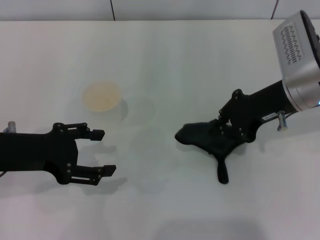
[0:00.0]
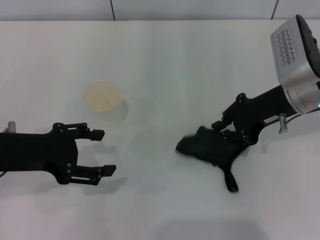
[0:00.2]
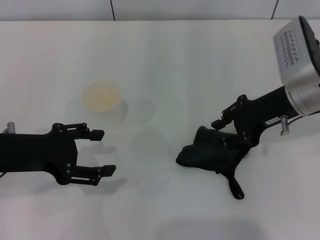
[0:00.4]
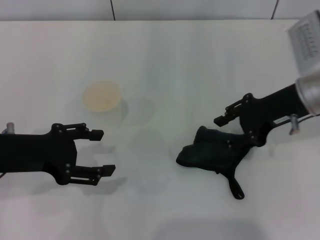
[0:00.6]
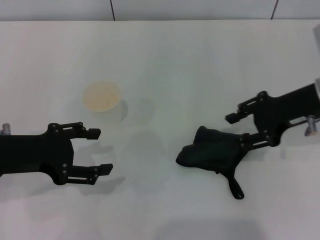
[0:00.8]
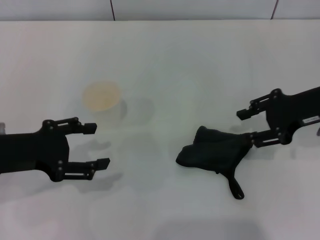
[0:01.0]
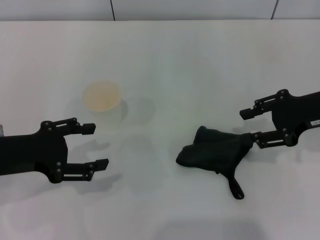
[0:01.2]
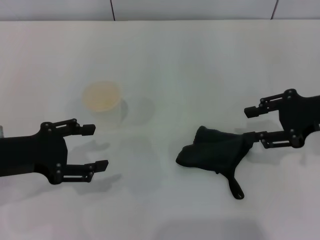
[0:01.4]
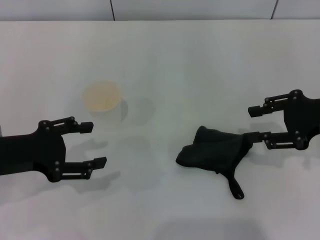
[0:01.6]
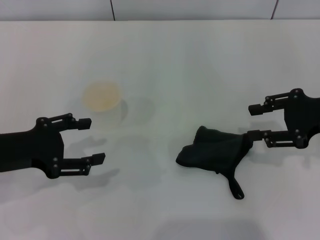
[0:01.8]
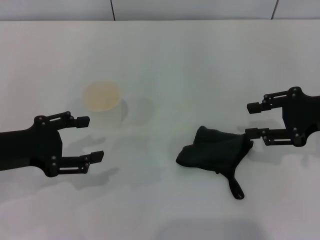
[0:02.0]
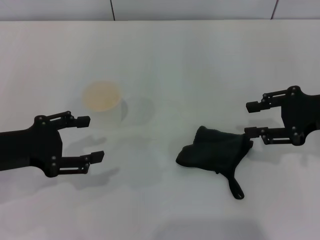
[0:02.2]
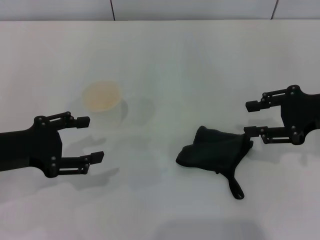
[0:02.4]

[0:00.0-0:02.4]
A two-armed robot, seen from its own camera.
0.0 to 1.2 s: The right gripper is displaced to the right by about 5 cm, and opens its fingers.
1.2 to 2.4 s: The grippers make only small movements.

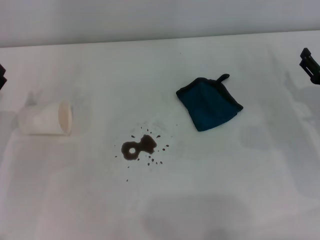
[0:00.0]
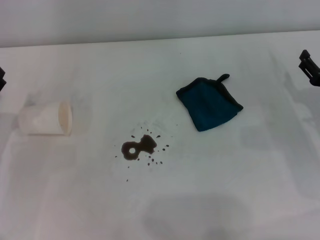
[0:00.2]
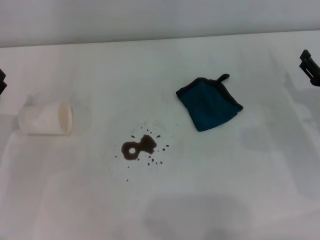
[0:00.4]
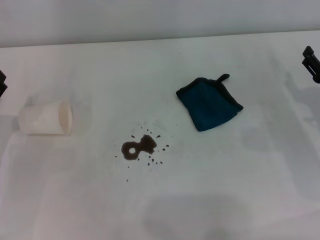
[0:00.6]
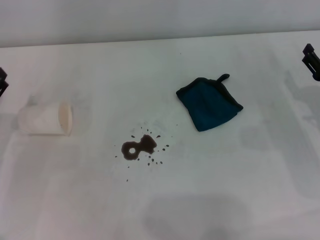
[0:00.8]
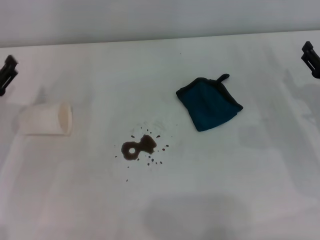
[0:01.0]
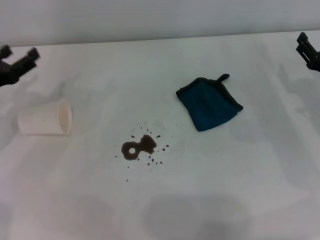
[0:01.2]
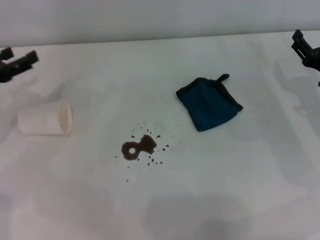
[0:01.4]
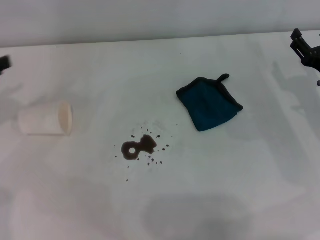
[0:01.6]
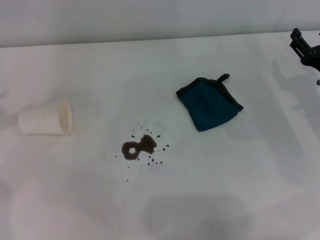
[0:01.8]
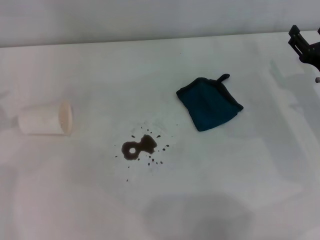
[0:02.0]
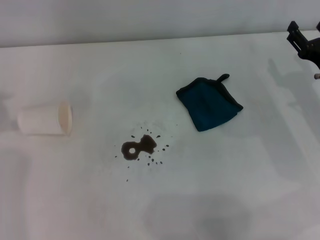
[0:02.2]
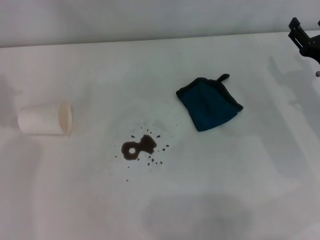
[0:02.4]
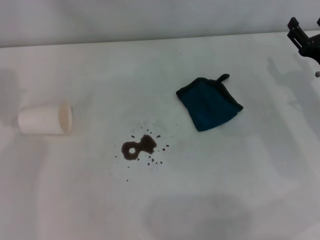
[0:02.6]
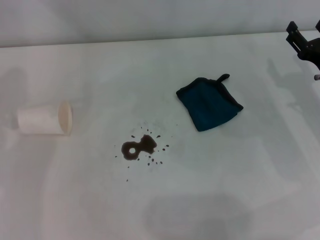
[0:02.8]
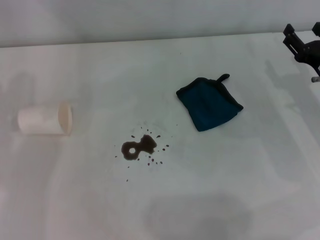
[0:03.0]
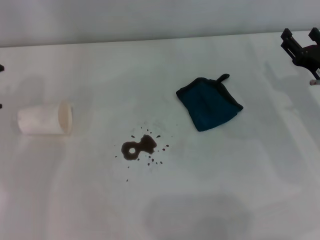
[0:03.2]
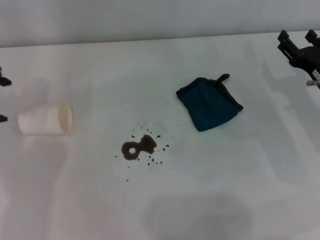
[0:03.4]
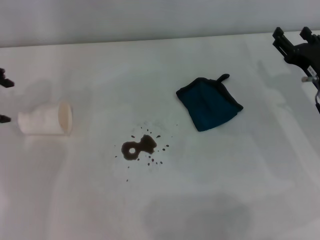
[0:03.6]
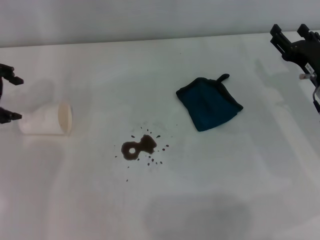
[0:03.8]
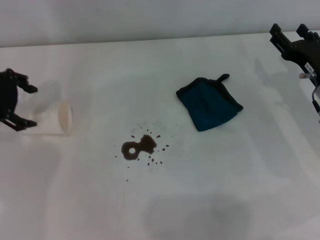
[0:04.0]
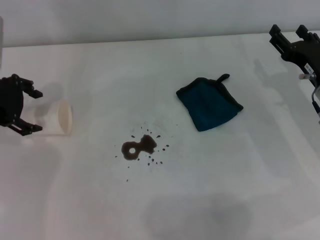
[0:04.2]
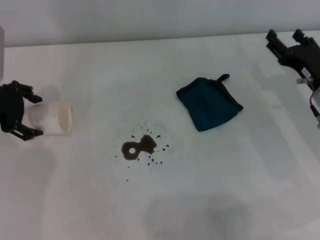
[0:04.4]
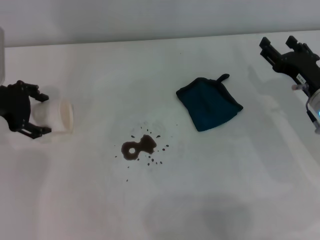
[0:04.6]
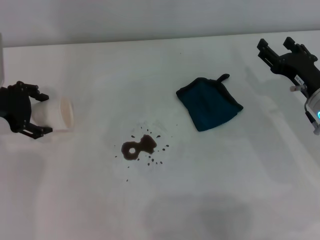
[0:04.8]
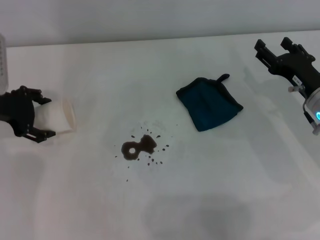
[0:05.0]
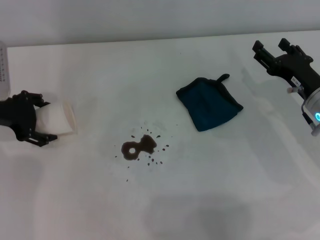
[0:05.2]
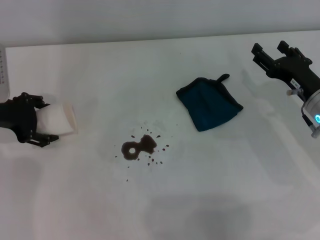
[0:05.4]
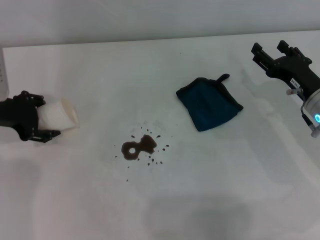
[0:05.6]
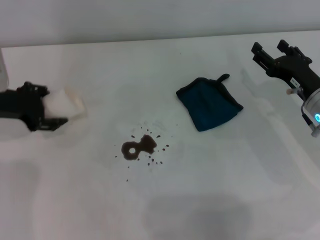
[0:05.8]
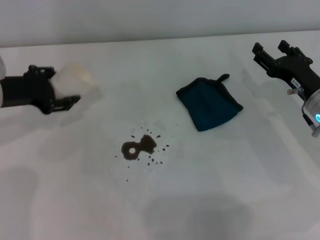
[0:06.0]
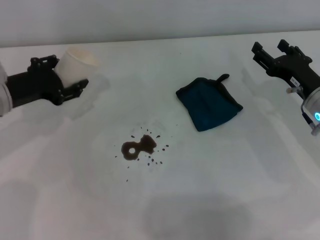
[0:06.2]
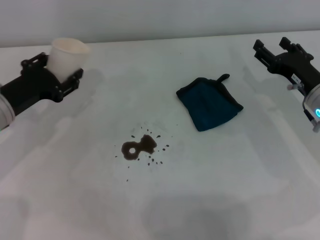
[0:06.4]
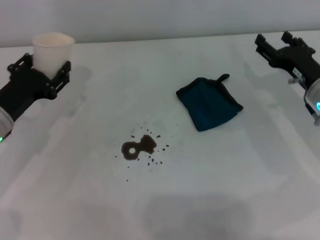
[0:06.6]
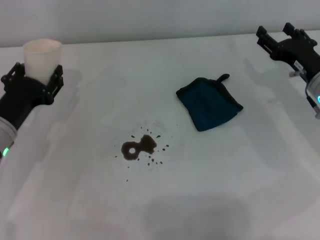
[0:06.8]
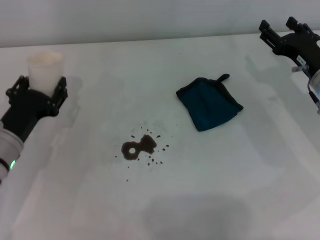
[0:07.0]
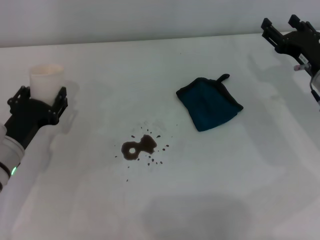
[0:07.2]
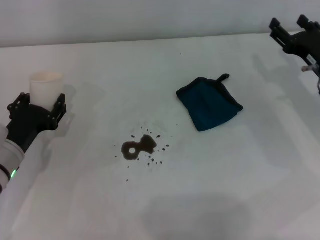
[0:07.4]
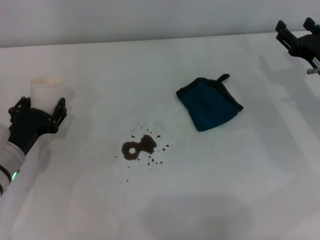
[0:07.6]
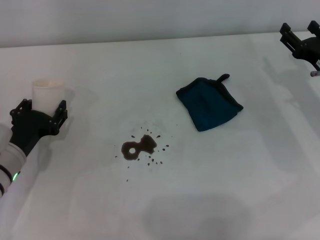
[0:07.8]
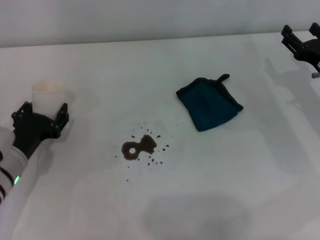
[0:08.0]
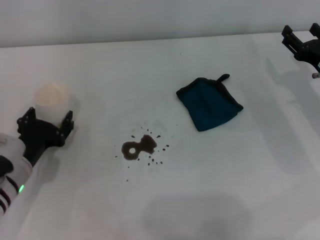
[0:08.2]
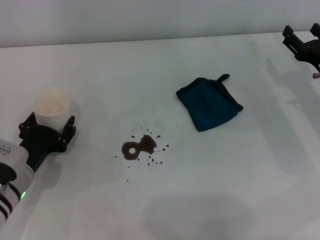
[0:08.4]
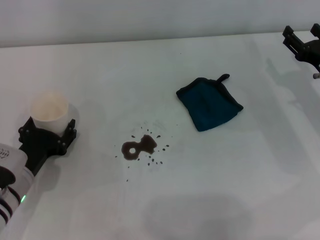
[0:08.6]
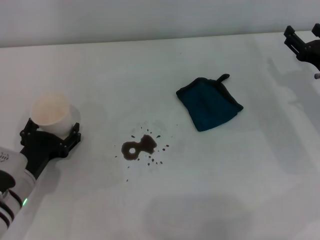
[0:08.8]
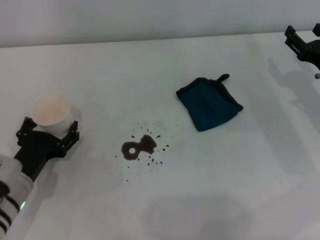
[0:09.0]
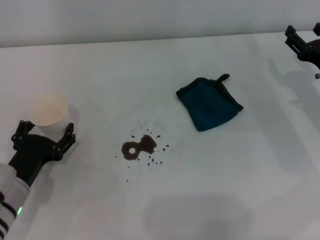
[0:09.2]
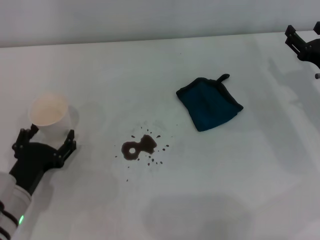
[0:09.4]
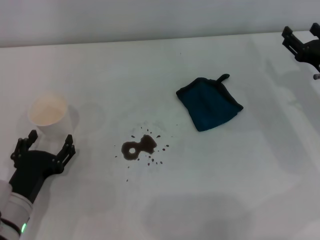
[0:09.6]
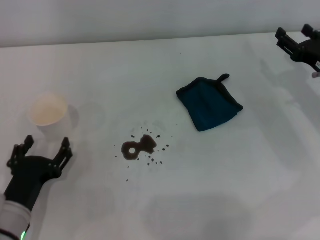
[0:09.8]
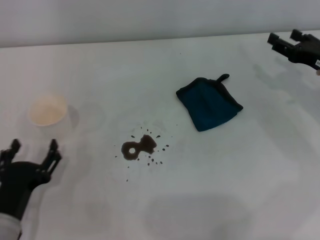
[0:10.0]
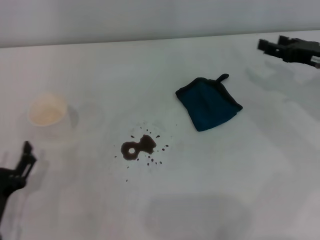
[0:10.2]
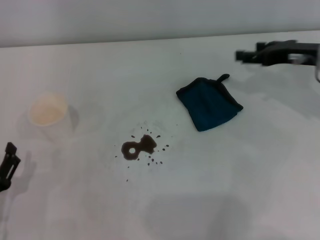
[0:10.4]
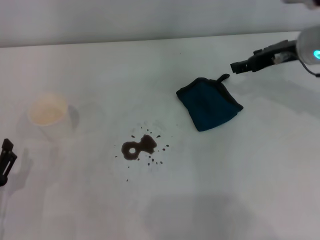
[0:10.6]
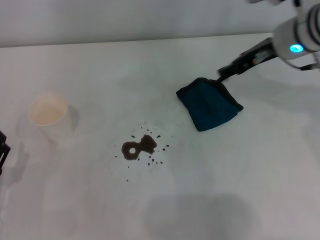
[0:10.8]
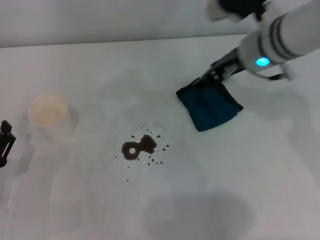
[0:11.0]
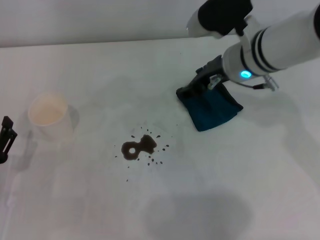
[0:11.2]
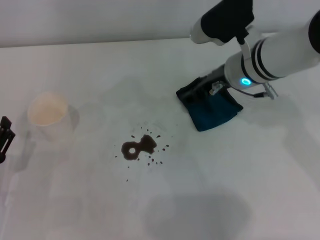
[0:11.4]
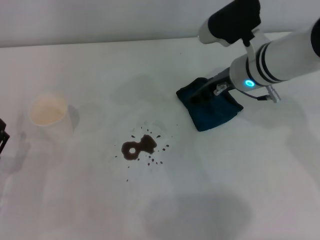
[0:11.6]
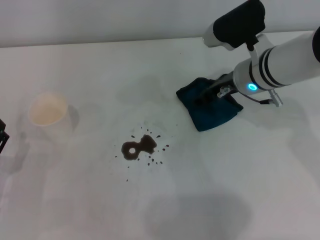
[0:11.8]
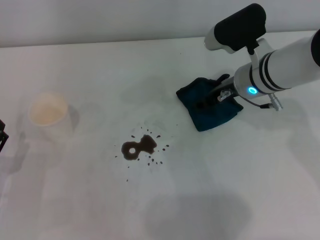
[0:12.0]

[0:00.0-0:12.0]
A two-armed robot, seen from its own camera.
Step, 0.0 to 4.8 s: Grasp the paper cup with the left gripper.
Step, 5.2 to 8.8 s: Stand the paper cup upright with the left gripper.
3.0 to 4.4 s: The left gripper moves downward, approximately 10 cm.
4.4 to 6.0 s: The left gripper closes.
6.0 to 7.6 s: The left gripper is displaced downward and backward by about 15 cm.
7.6 to 9.0 s: The left gripper opens up.
9.0 to 10.4 s: The right gripper travels upward by roughly 10 cm. Meanwhile the left gripper is displaced backward by some 10 cm.
10.4 to 12.0 s: The right gripper goes some 10 cm to the left.

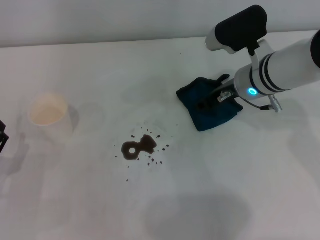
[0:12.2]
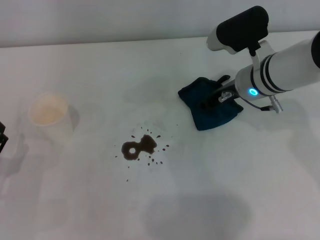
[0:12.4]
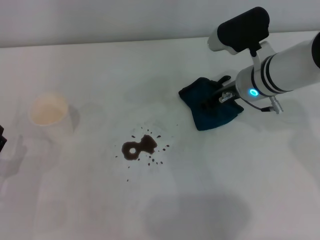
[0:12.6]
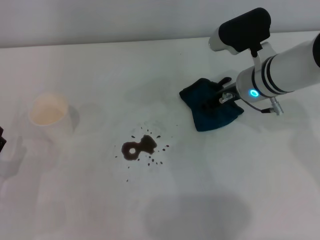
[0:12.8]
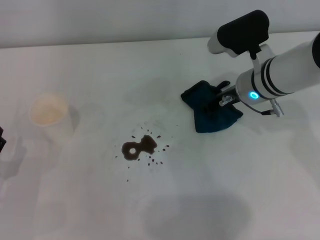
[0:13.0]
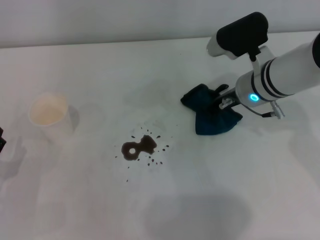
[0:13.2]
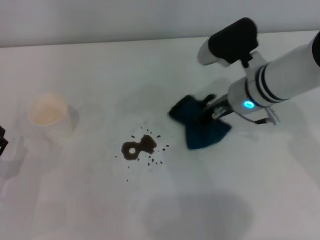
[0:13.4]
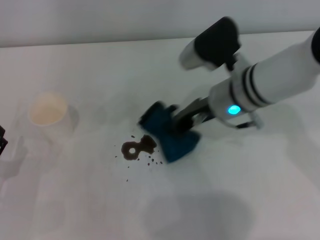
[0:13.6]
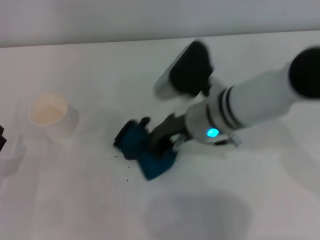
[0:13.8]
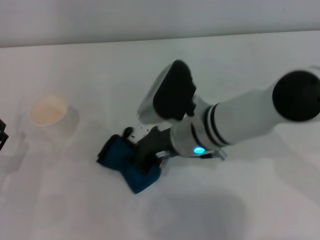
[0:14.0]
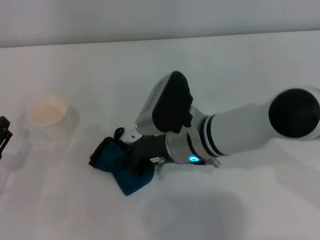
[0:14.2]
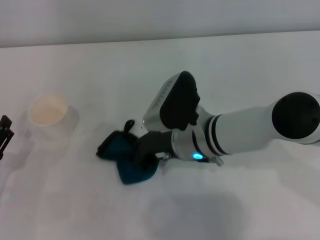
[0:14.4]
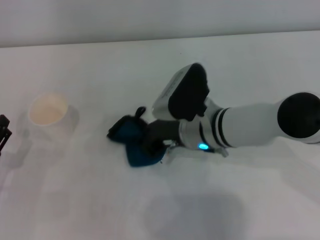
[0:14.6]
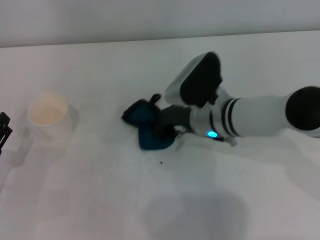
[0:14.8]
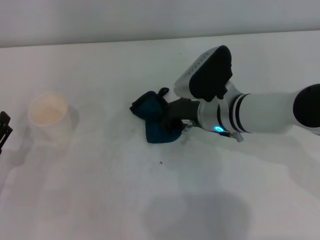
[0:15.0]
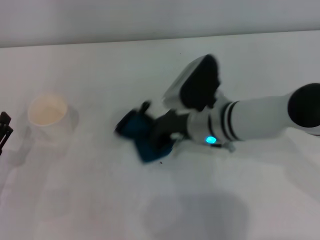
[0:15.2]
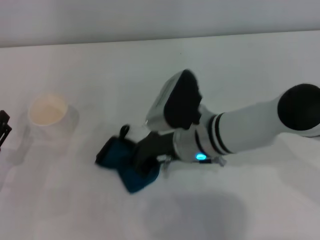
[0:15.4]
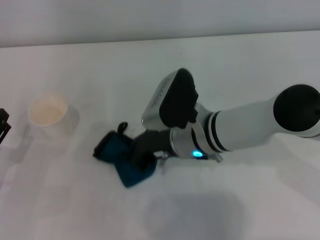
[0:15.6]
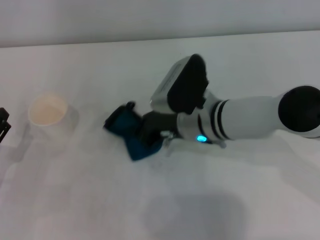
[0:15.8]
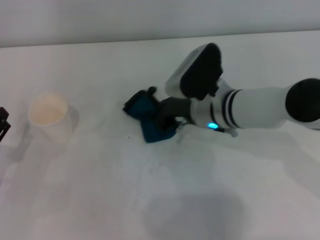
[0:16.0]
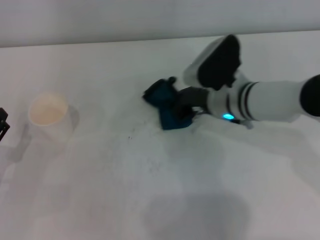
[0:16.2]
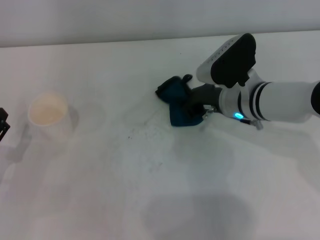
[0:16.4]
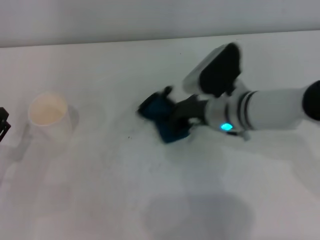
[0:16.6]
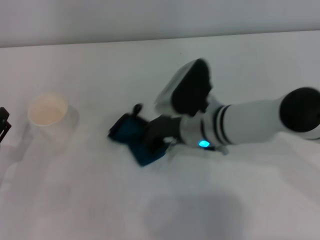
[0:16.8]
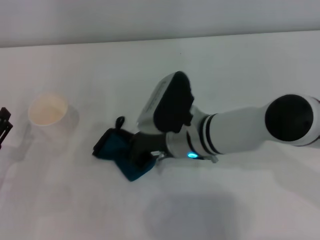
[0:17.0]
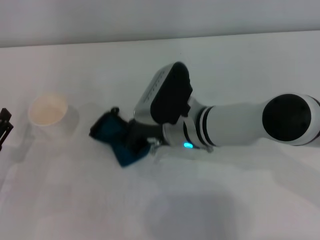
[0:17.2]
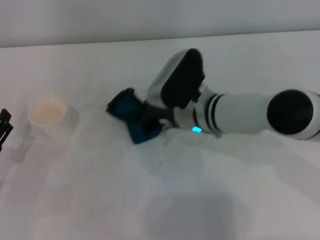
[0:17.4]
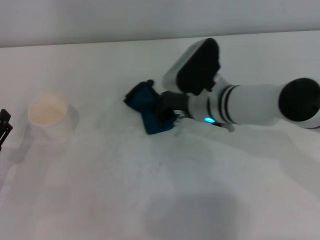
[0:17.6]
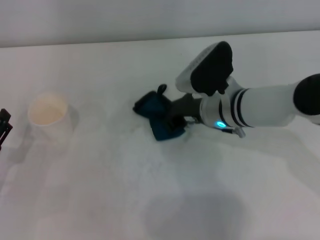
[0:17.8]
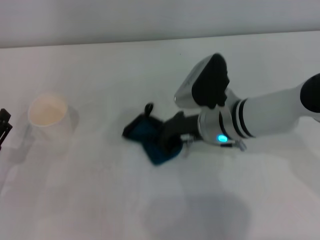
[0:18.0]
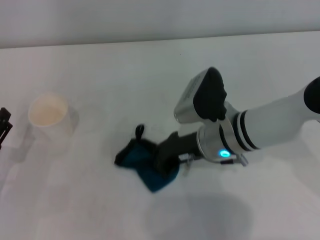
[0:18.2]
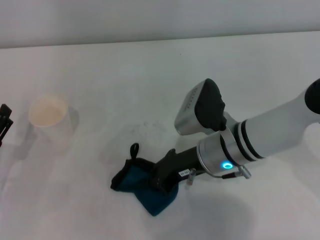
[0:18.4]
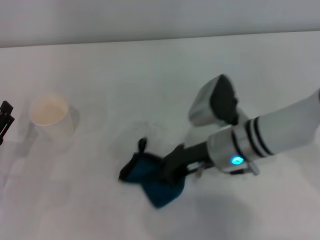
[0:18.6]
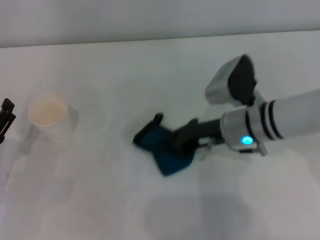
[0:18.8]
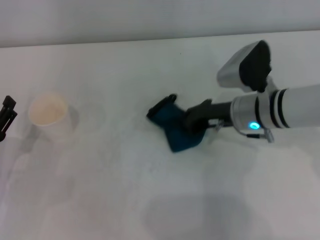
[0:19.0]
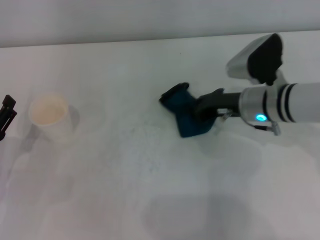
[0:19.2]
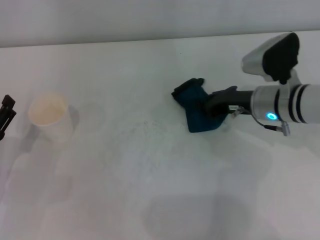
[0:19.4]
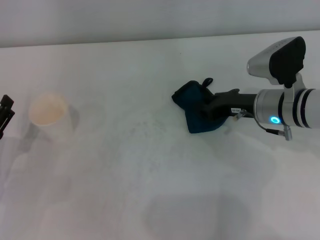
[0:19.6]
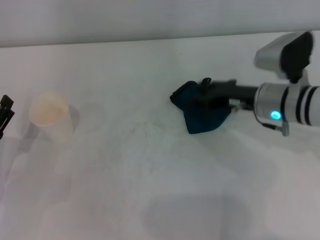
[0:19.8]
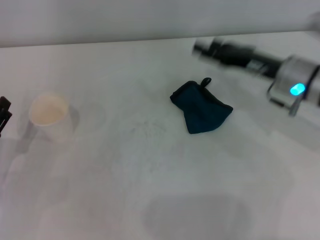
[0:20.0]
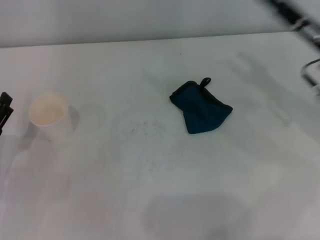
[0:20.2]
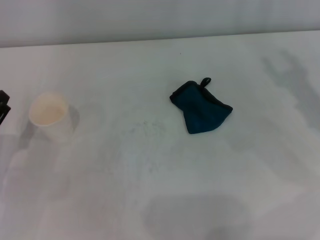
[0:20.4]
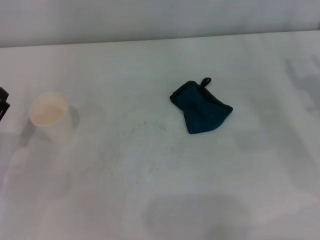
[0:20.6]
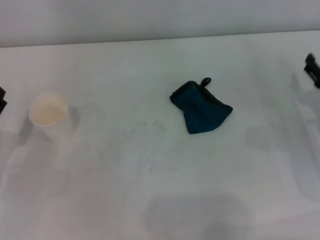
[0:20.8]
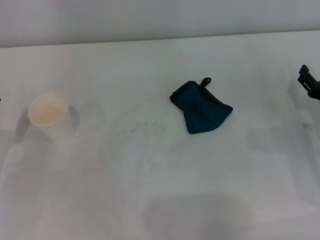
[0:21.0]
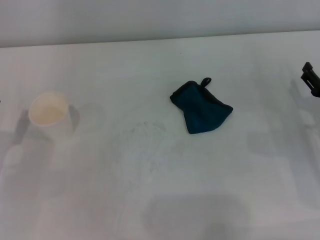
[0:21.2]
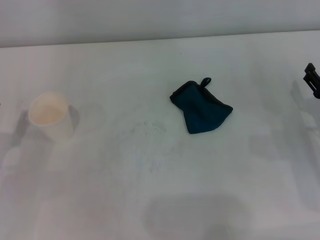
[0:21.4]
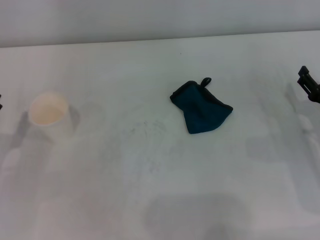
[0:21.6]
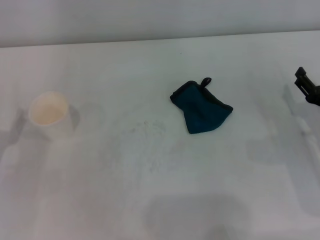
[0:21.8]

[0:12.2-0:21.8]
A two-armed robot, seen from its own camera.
Step, 13.4 to 18.8 s: Wipe the stains off the table with the right gripper.
Step, 19.0 to 19.6 s: Place the rag on the table with the right gripper.
12.2 to 13.8 s: The right gripper travels to the left and backward by some 10 cm, and closes up.
13.8 to 15.4 s: The grippers make only small movements.
15.4 to 17.0 s: The right gripper reaches about 10 cm to the right, then returns.
17.0 to 18.6 s: The right gripper goes roughly 5 cm to the right.
18.6 to 20.2 s: The right gripper shifts roughly 15 cm to the right, and opens.
20.2 to 21.8 s: The right gripper moves downward and backward, roughly 10 cm.
